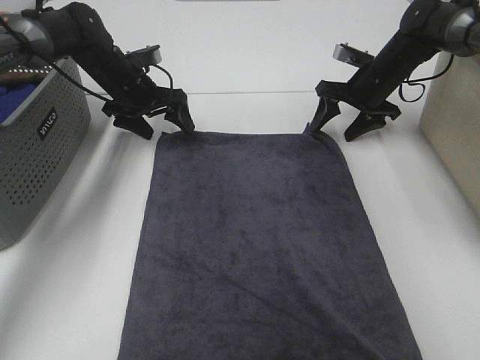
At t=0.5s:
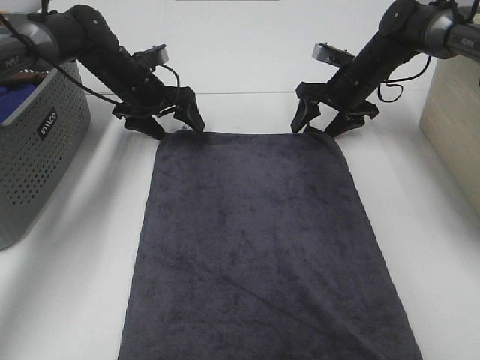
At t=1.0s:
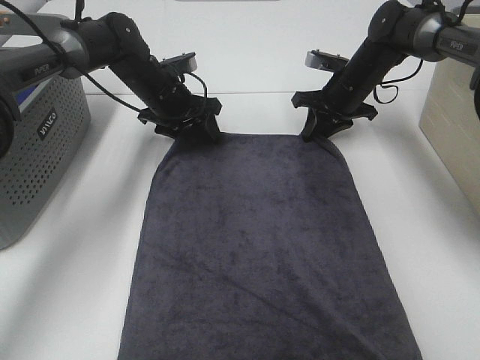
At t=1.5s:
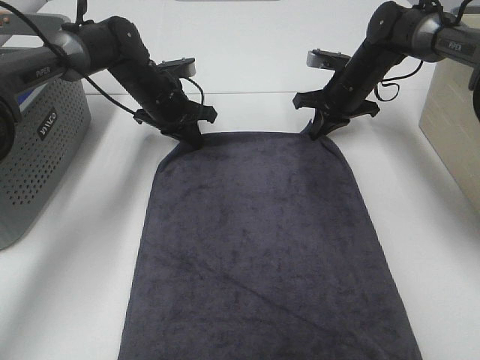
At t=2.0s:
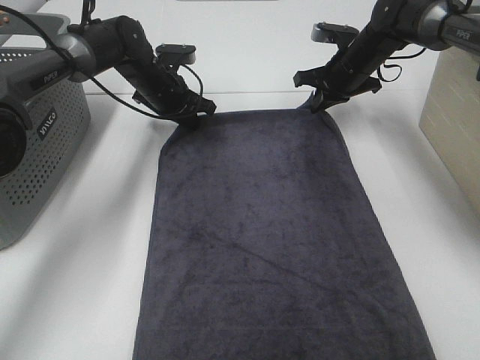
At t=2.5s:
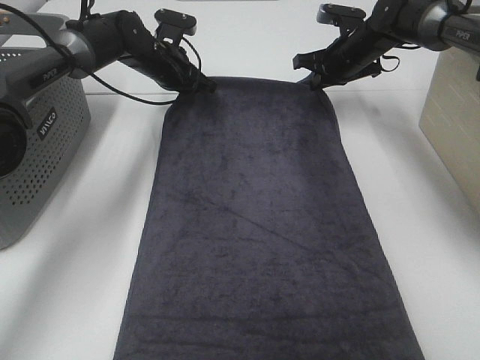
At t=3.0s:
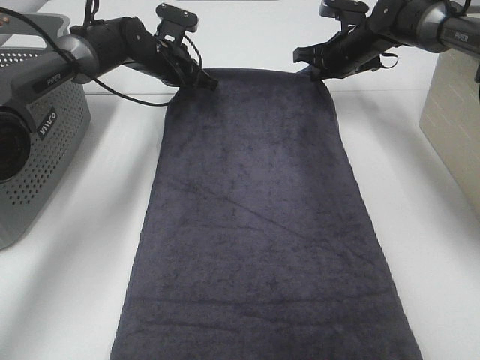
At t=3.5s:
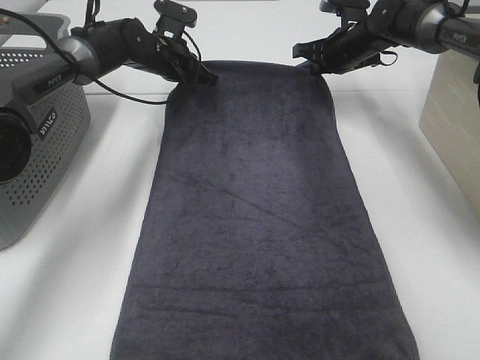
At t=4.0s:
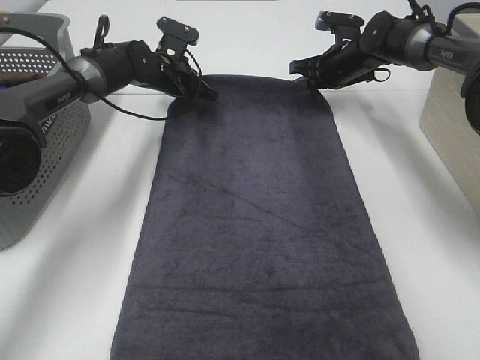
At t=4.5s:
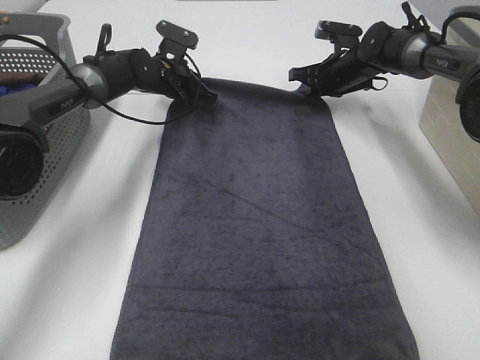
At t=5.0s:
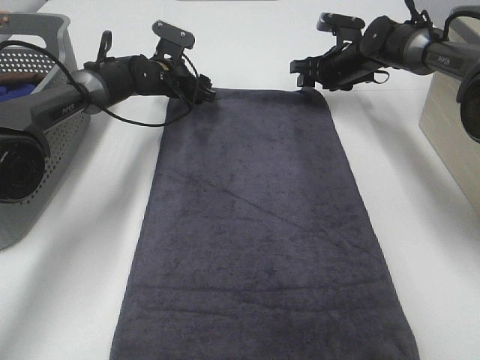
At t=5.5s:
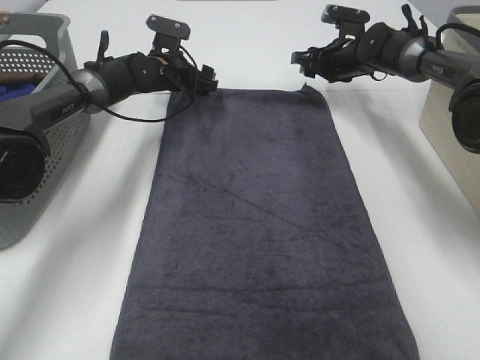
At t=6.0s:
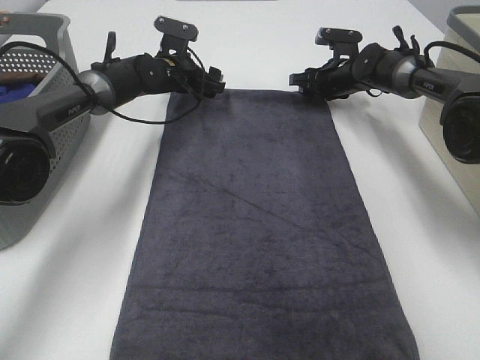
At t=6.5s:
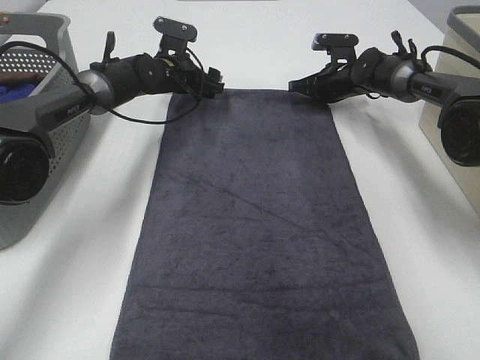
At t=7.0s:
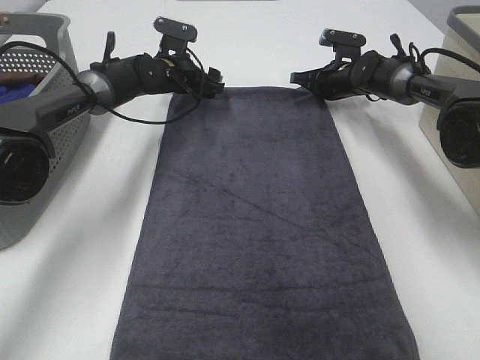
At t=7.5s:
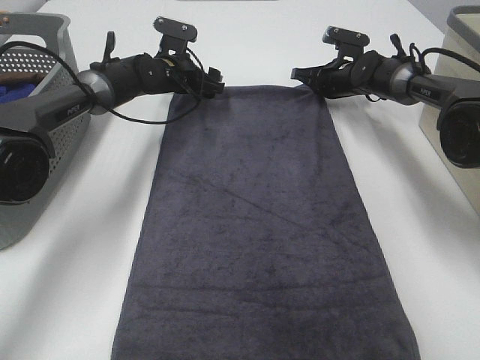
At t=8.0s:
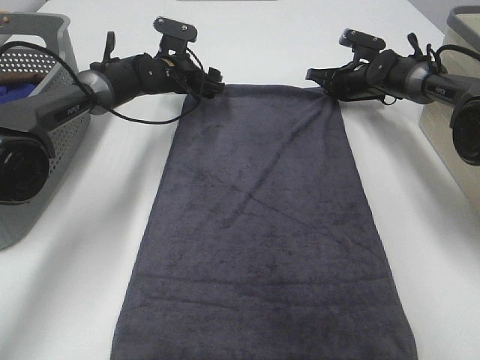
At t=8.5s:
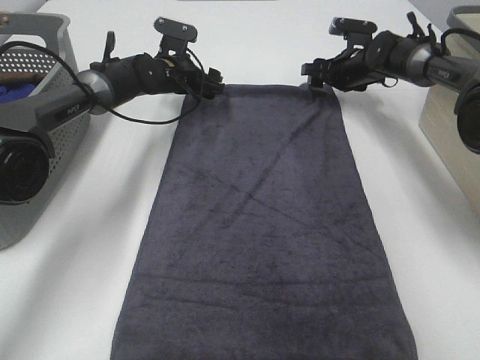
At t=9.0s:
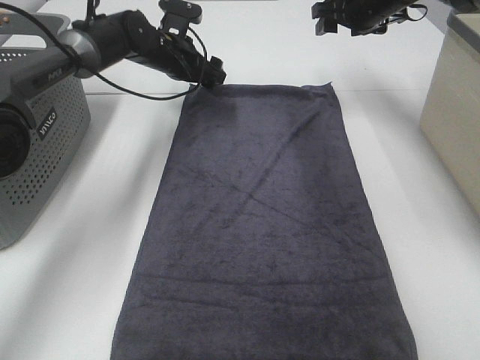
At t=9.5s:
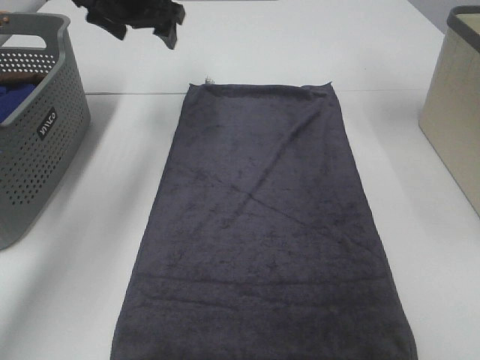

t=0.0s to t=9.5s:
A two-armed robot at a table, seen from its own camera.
Task of the whole recording: Remove the towel and place it.
Step, t=0.0s to t=2.0s: Right hand:adjust the gray towel.
t=0.0s to t=2.0s: The left gripper closes up. Meanwhile the right gripper closes.
t=4.0s to t=5.5s: The left gripper opens, while the right gripper opens its fingers.
t=5.5s to t=7.5s: The right gripper closes its fingers.
t=7.5s to t=9.5s: The right gripper is displaced upward by about 30 cm, and opens up, while the left gripper shifts roughly 20 cm upward.

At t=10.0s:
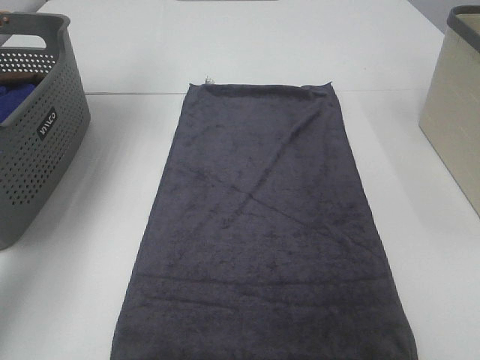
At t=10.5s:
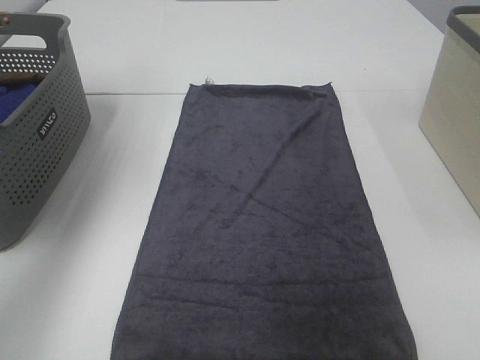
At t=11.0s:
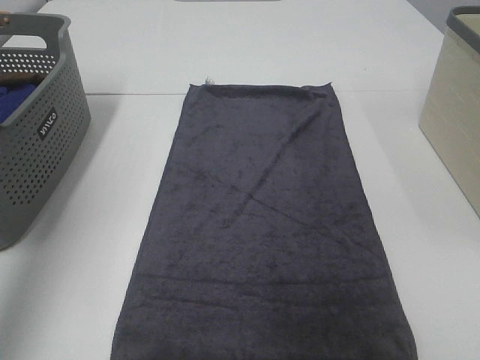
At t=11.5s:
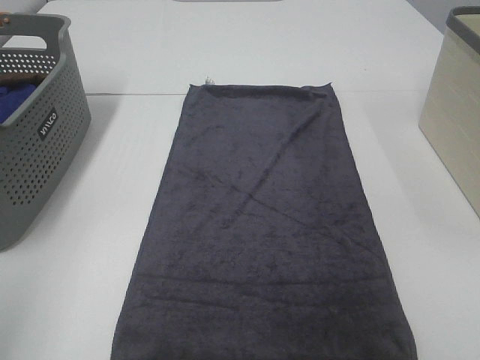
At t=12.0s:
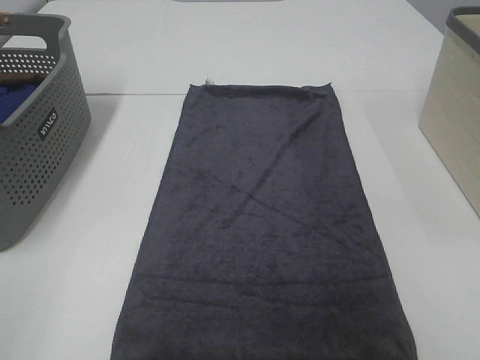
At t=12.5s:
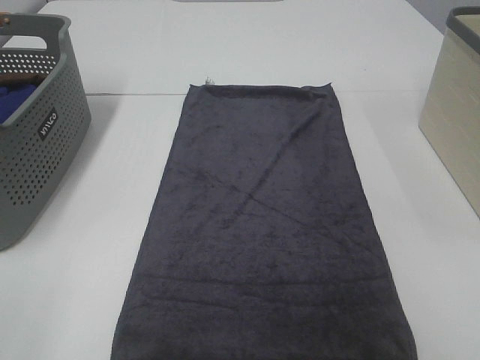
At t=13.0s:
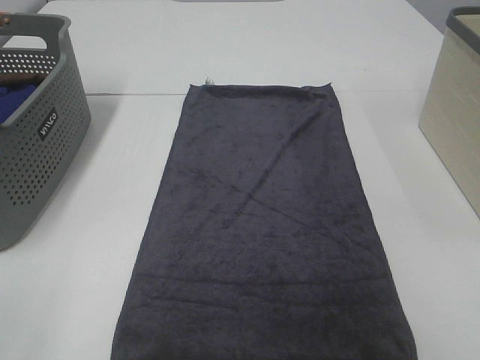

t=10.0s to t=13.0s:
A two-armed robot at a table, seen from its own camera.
Task of the whole recording: Remove the towel and place it.
t=10.0s to t=11.5s: The left gripper is displaced backward by approximately 40 cm.

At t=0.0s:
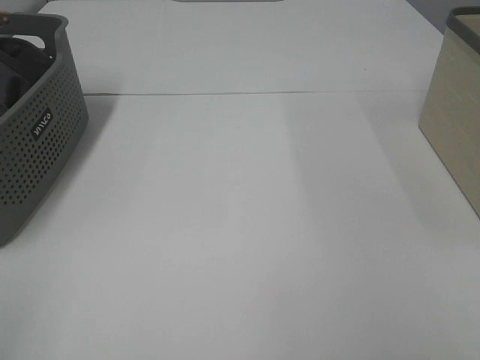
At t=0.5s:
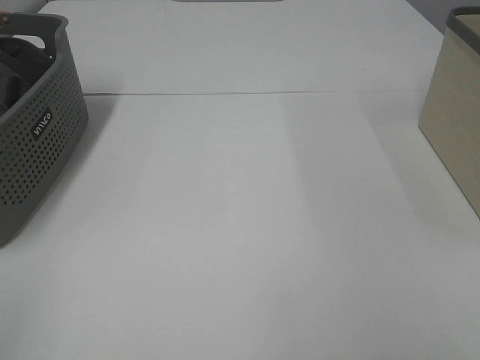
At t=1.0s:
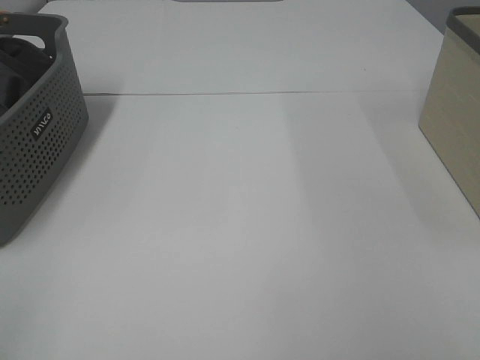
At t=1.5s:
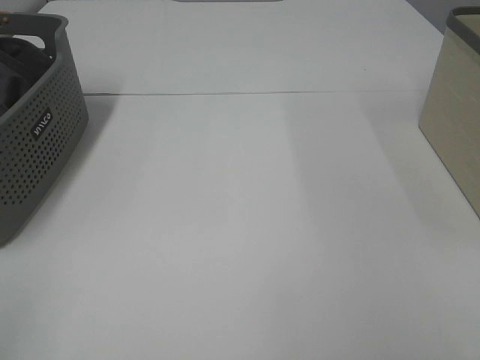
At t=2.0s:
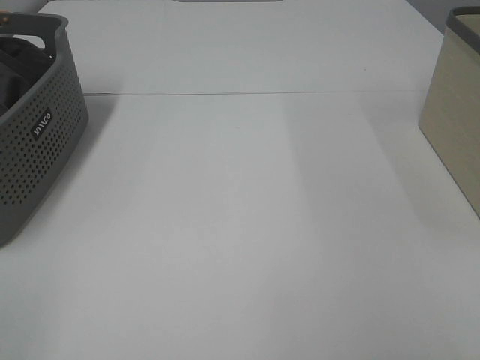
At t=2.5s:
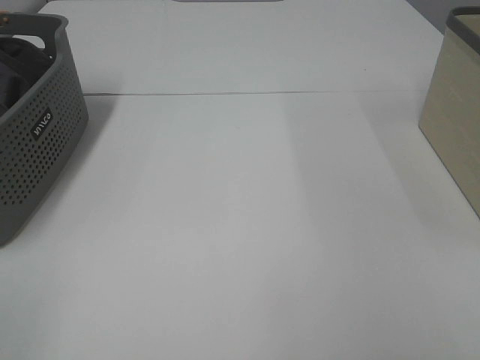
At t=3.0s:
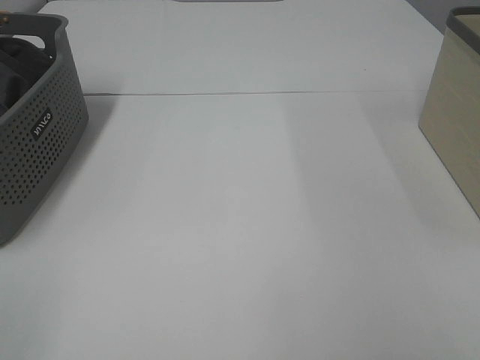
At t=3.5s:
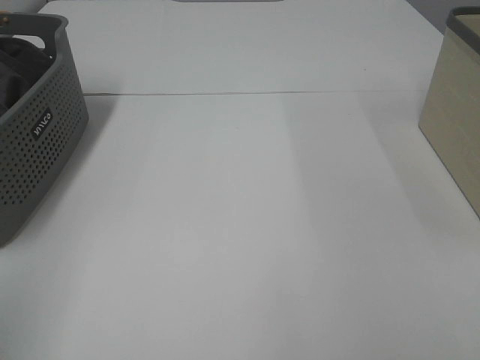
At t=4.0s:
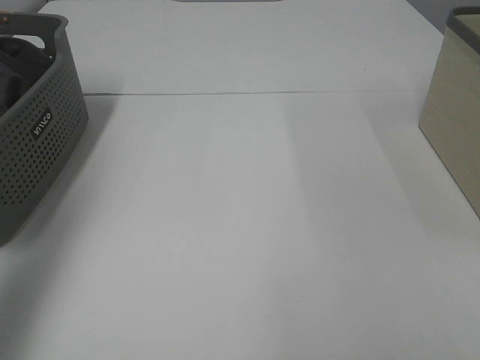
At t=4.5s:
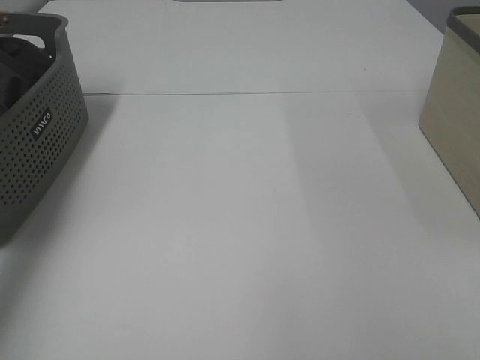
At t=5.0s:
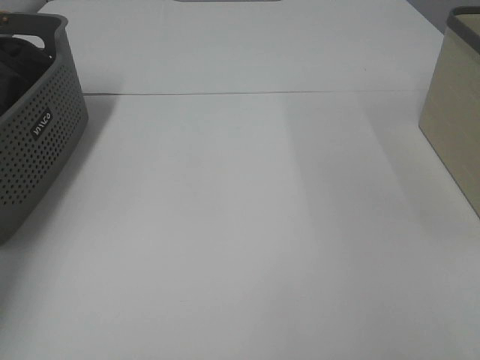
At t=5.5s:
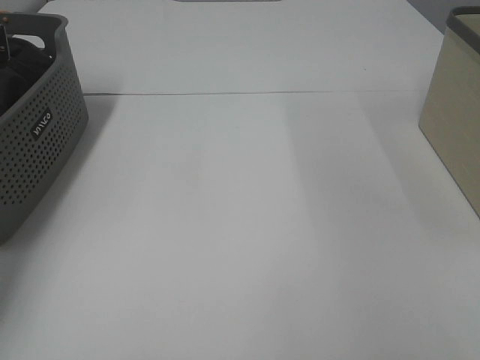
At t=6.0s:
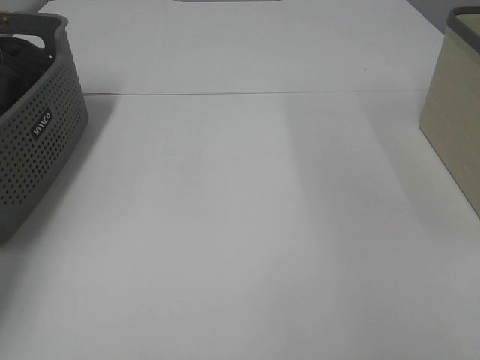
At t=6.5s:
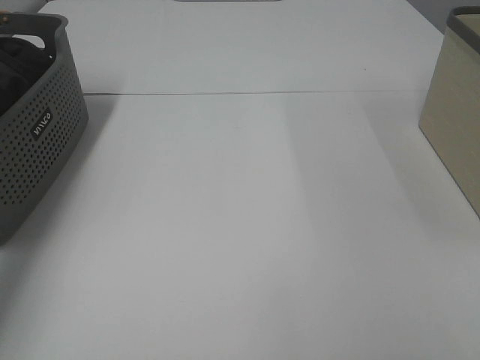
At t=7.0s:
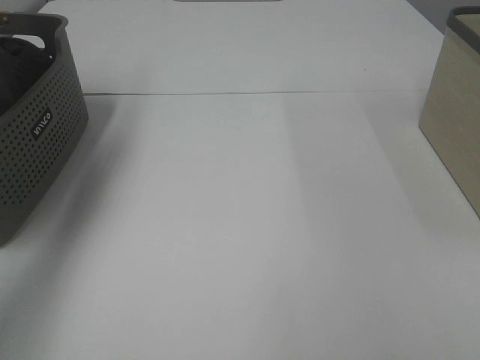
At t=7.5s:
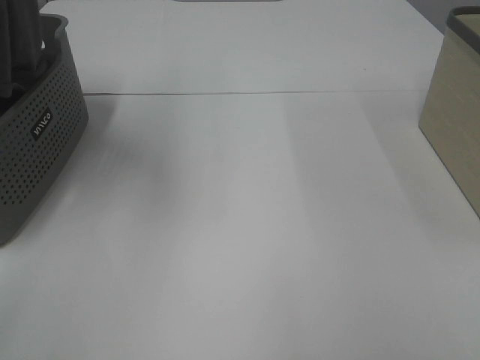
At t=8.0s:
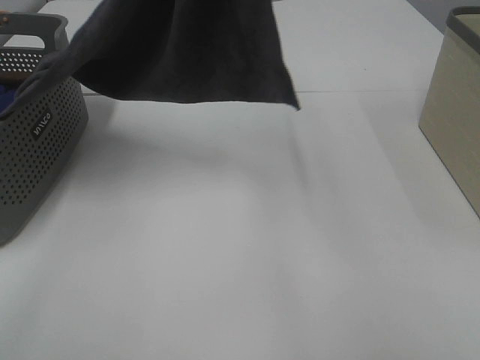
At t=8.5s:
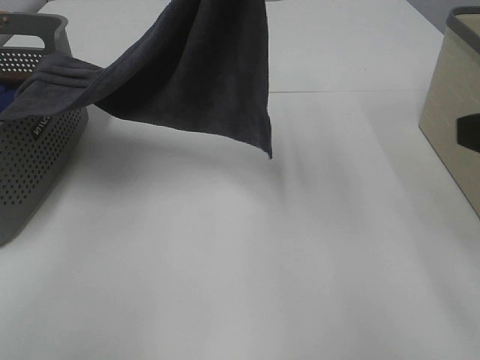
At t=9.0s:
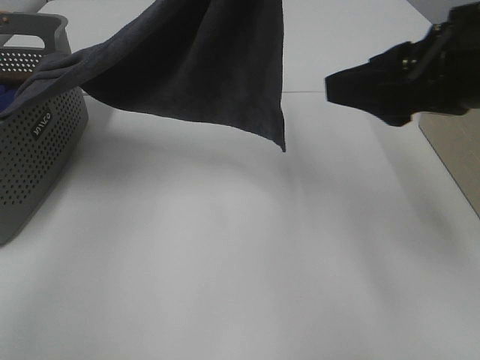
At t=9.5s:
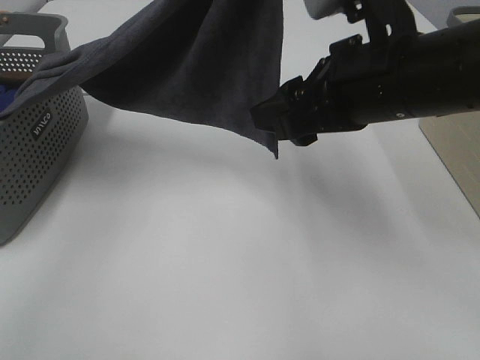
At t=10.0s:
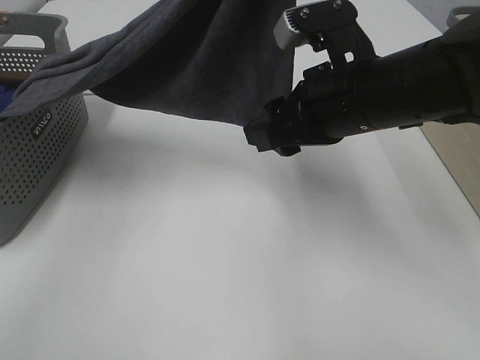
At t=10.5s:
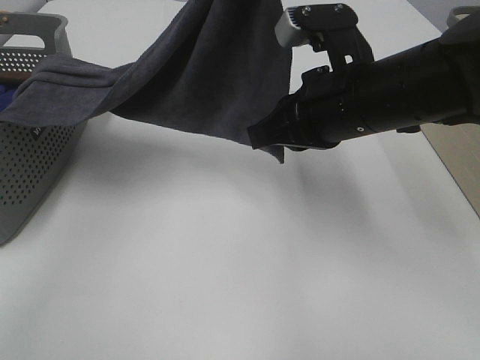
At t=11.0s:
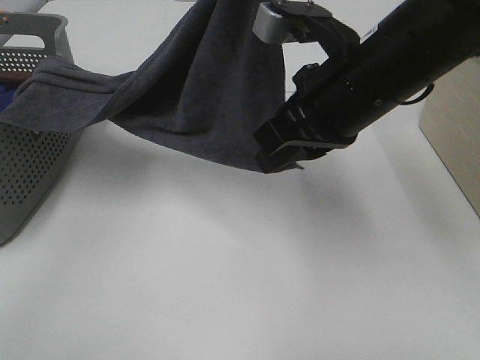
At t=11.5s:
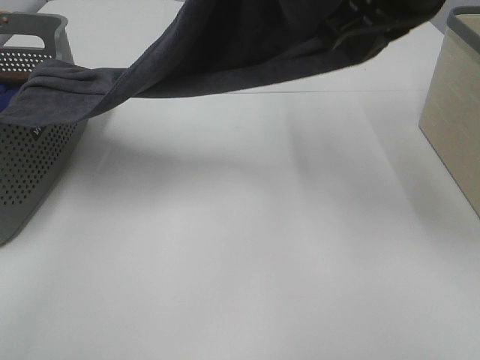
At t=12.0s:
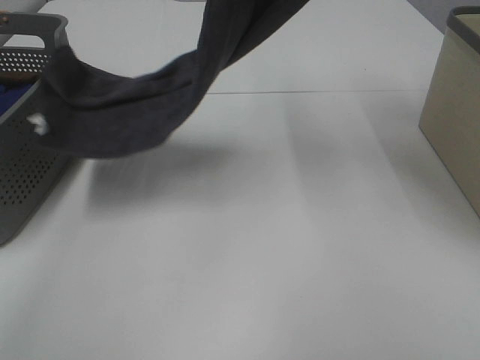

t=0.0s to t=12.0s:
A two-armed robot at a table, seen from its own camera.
Task of the whole recording: Remove the towel and place it.
Step, t=7.5s to t=11.0s: Right hand: grab a corner of the grey towel and straighten it.
t=0.0s to t=2.0s: Neither gripper changes place.
t=2.0s to t=4.0s: The left gripper travels forward and upward by approximately 25 cm.
t=4.0s to t=6.0s: The left gripper goes some 30 cm forward and downward, and closes its fingers.
t=6.0s to t=8.0s: The left gripper travels to the right, upward and backward by about 50 cm.
t=8.0s to t=10.0s: The left gripper moves approximately 5 cm, while the right gripper is displaced forward and to the left by some 30 cm.
t=10.0s to t=12.0s: The left gripper changes place by approximately 5 cm. Meanwhile the right gripper heads upward, covering some 20 cm, and closes its fingers.

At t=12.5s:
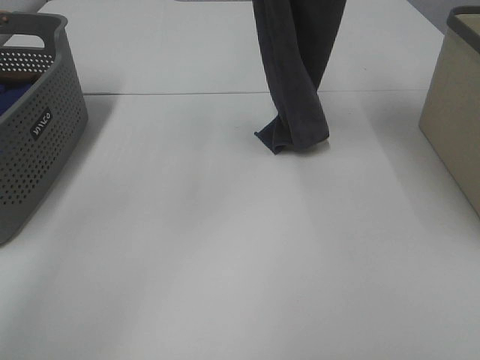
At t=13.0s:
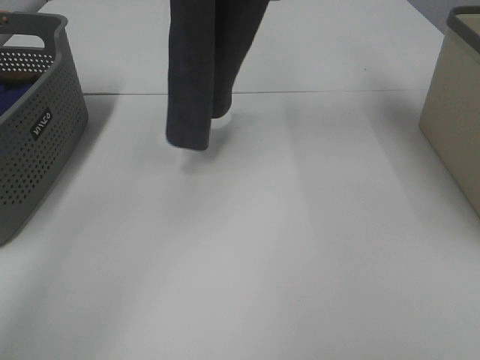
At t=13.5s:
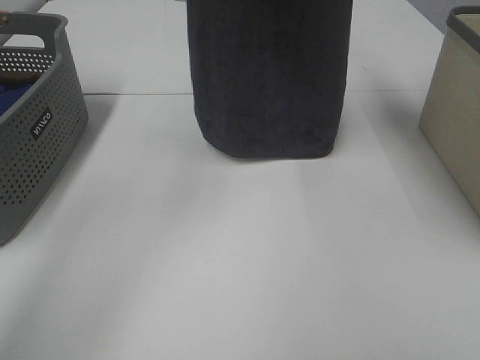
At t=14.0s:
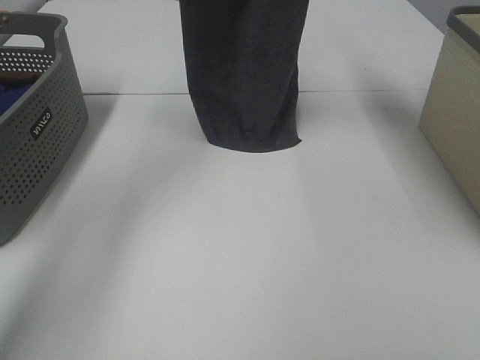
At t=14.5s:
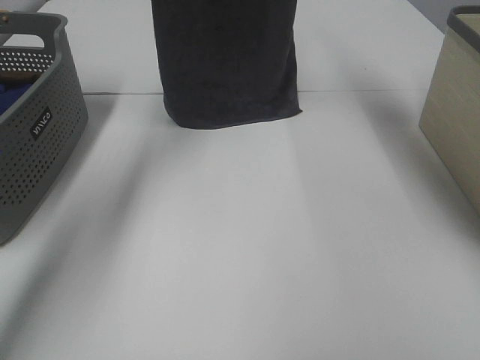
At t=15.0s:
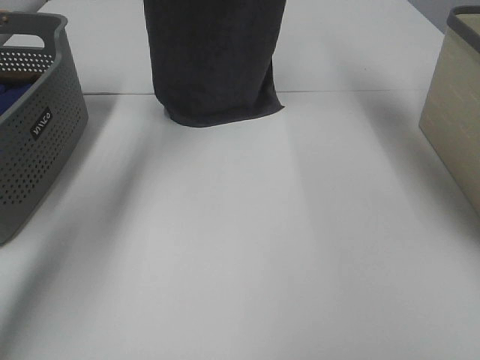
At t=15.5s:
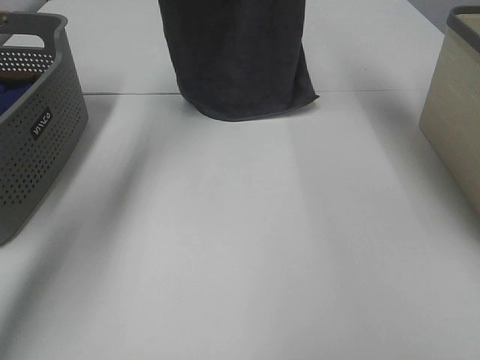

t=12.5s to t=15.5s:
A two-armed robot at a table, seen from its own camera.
Task of the whole recording: Remove the towel and place it.
t=12.5s to t=14.0s: The left gripper travels forward and to the left by about 10 cm. Meanwhile the right gripper heads forward, covering roughly 5 cm.
t=14.0s to t=15.5s: The left gripper shifts by about 5 cm.
